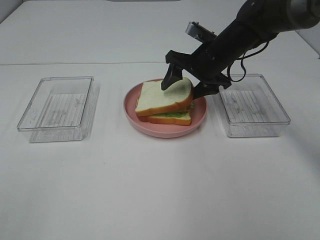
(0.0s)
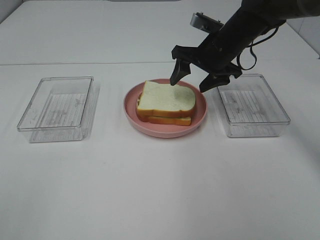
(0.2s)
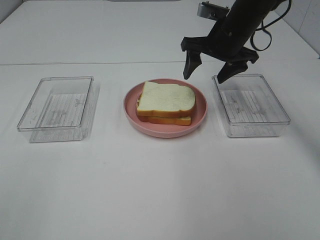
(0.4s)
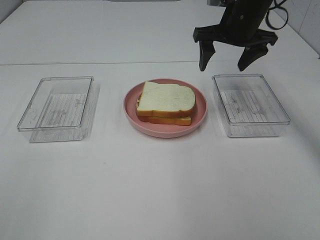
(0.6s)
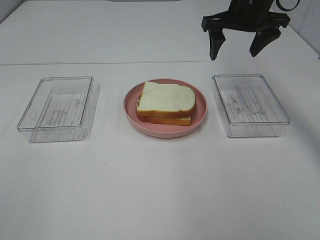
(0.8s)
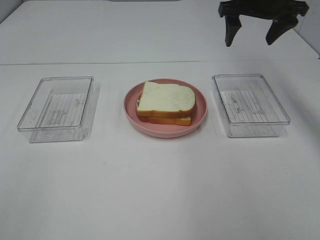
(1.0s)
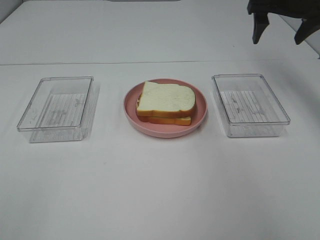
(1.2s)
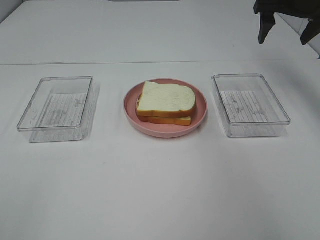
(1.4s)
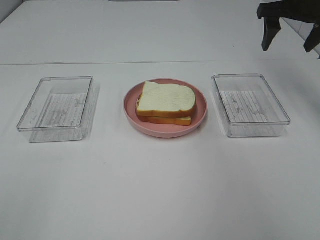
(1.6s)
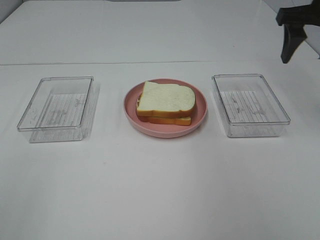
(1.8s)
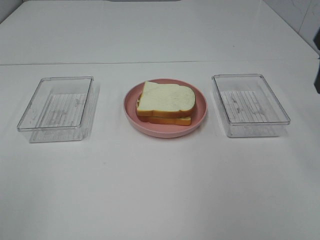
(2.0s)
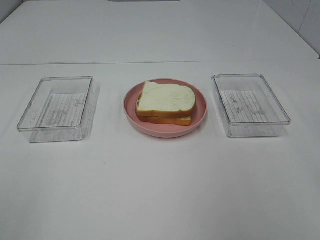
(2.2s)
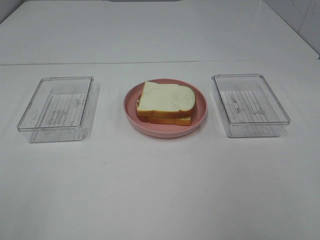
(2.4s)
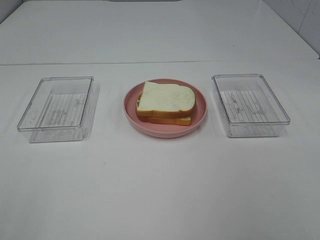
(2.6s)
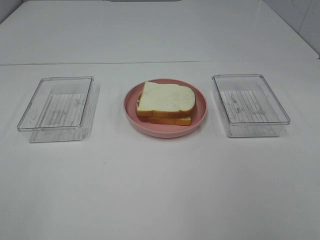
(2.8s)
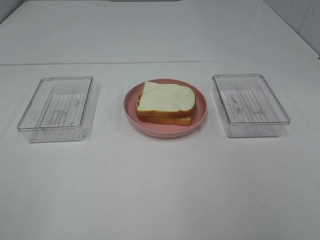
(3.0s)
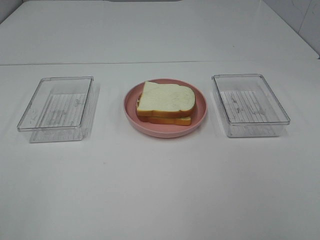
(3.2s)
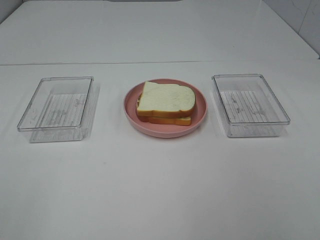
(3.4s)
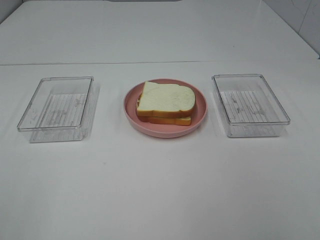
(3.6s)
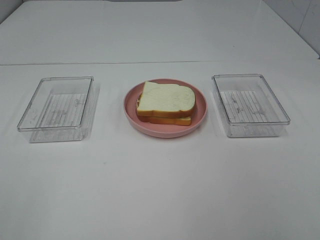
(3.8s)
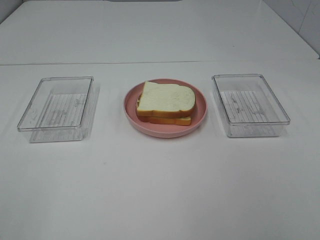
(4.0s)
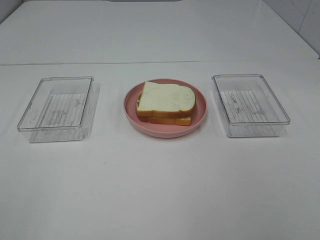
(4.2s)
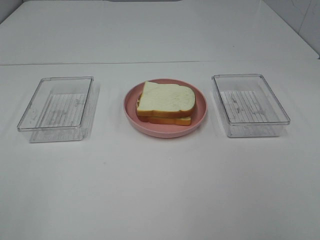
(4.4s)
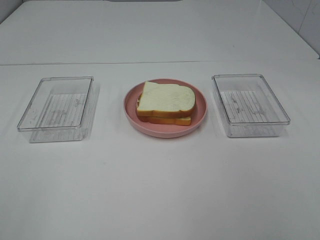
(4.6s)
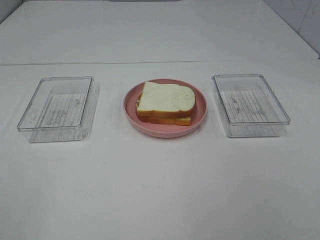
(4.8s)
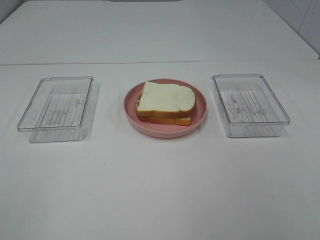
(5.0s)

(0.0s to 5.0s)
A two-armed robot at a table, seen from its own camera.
Task of the whole recording: Make sandwiches.
0.0s - 1.6s: The right gripper heads to the right and upward, covering about 20 cm.
1.6s - 3.4s: The right gripper travels backward by some 40 cm.
3.4s - 5.0s: Both grippers stay about where they are.

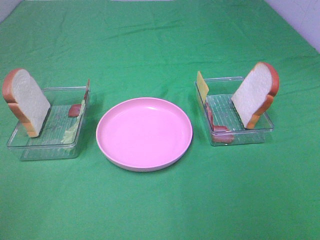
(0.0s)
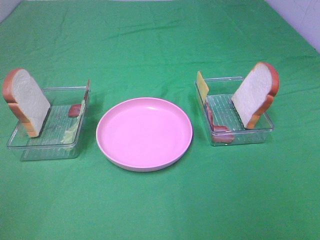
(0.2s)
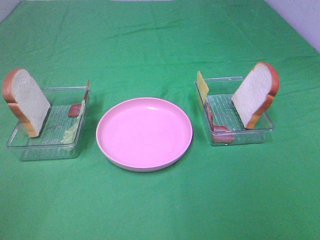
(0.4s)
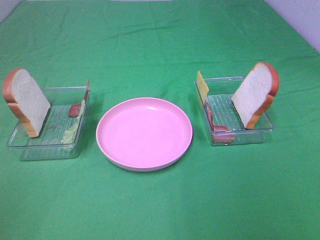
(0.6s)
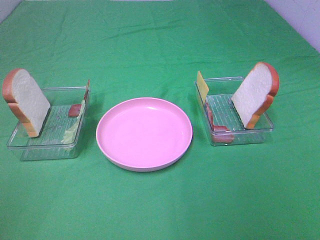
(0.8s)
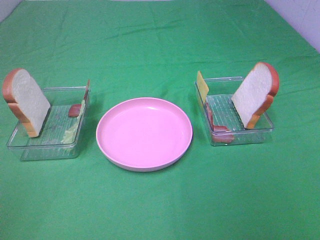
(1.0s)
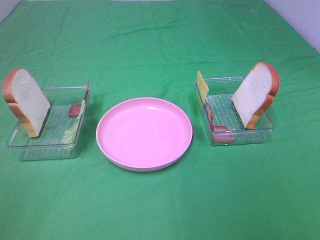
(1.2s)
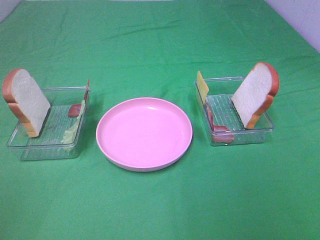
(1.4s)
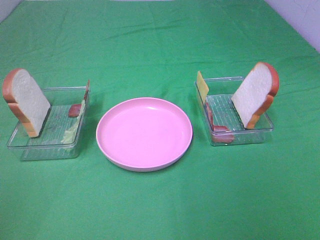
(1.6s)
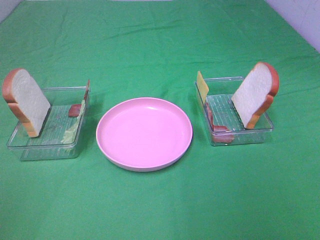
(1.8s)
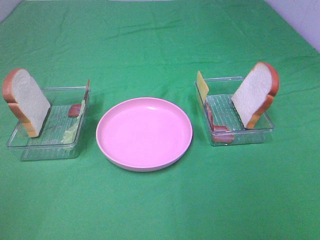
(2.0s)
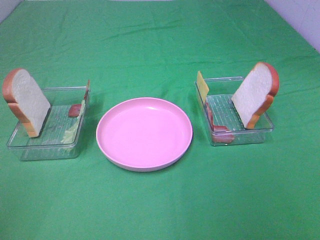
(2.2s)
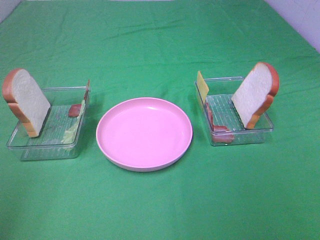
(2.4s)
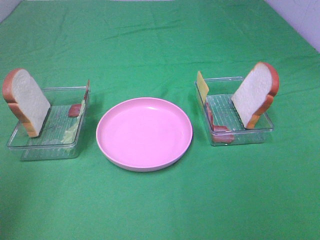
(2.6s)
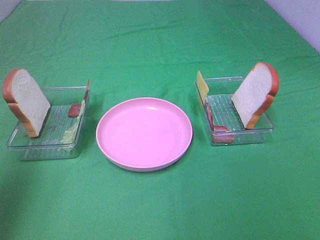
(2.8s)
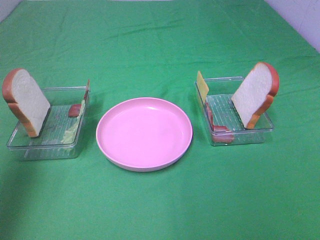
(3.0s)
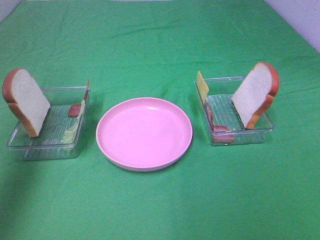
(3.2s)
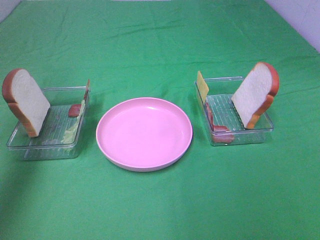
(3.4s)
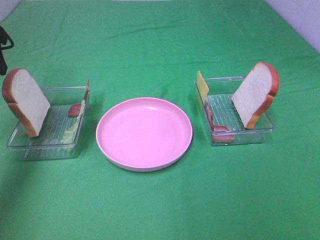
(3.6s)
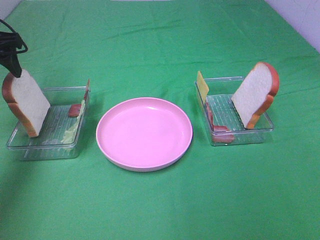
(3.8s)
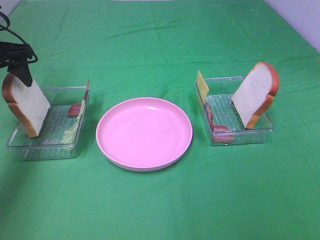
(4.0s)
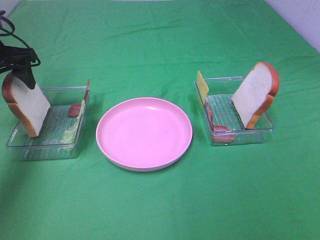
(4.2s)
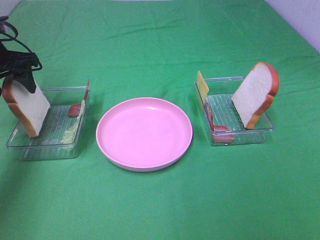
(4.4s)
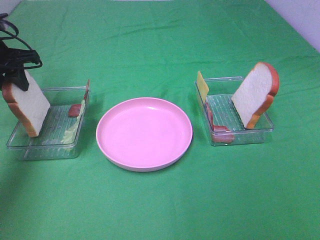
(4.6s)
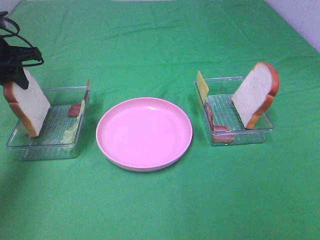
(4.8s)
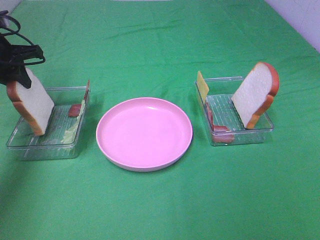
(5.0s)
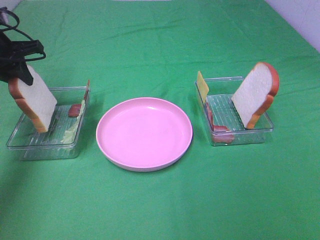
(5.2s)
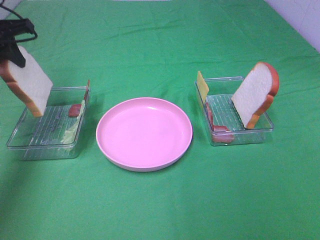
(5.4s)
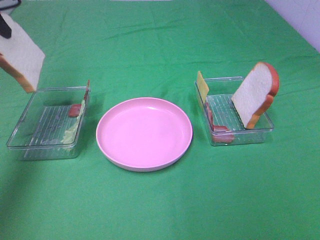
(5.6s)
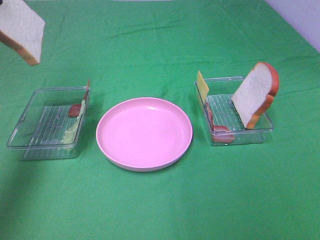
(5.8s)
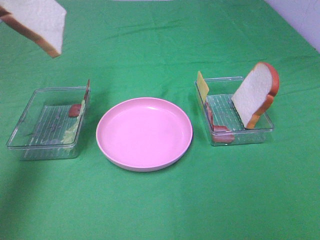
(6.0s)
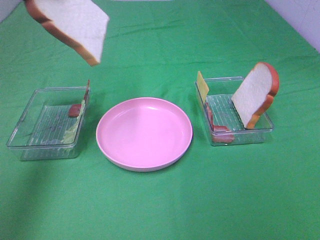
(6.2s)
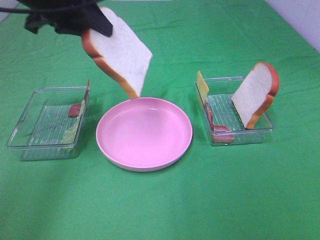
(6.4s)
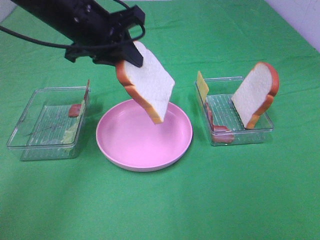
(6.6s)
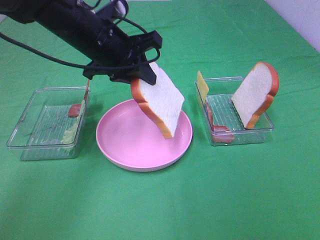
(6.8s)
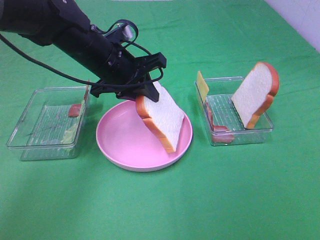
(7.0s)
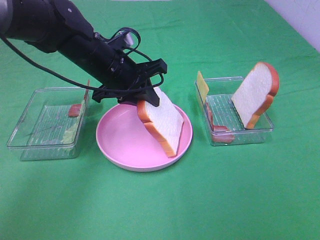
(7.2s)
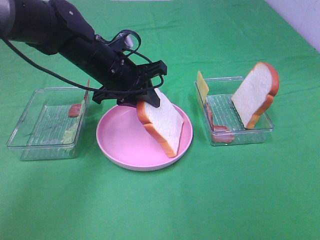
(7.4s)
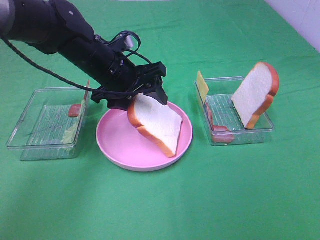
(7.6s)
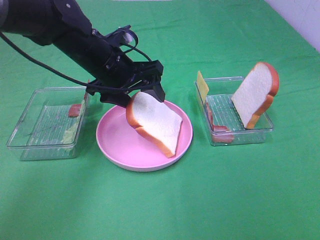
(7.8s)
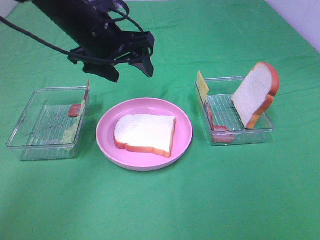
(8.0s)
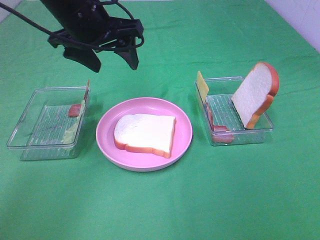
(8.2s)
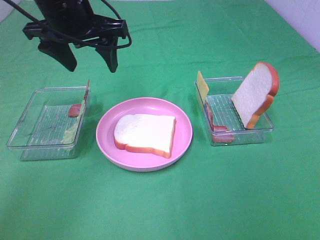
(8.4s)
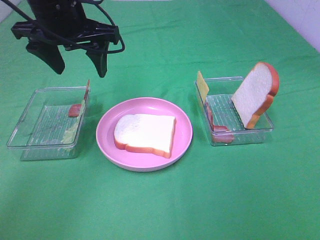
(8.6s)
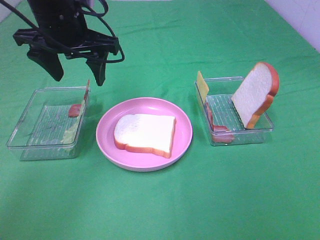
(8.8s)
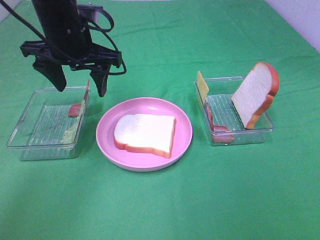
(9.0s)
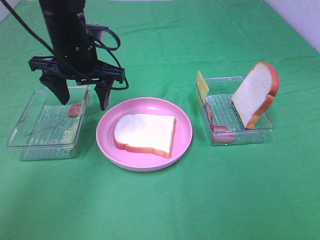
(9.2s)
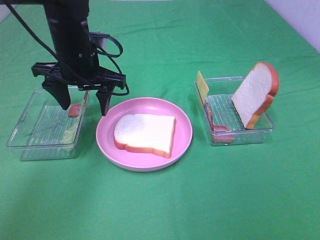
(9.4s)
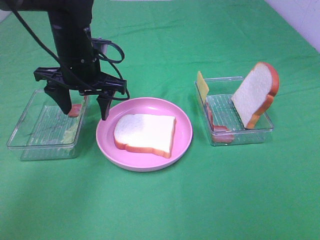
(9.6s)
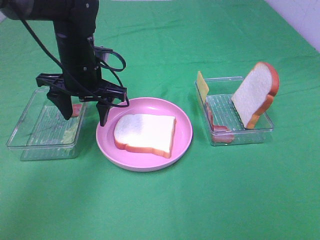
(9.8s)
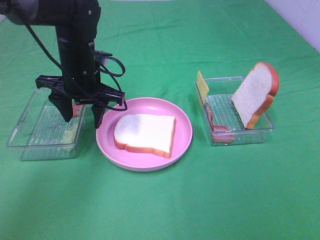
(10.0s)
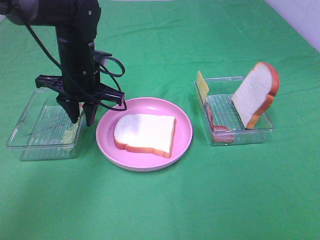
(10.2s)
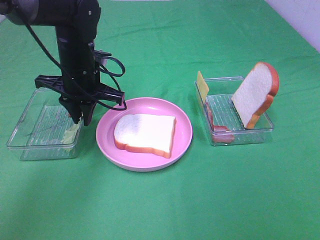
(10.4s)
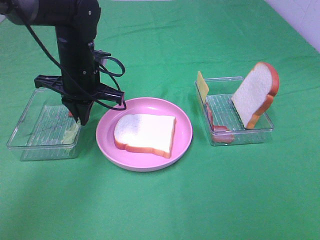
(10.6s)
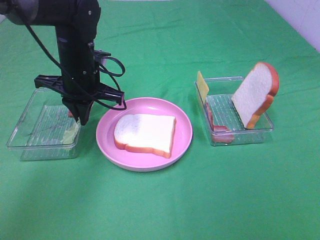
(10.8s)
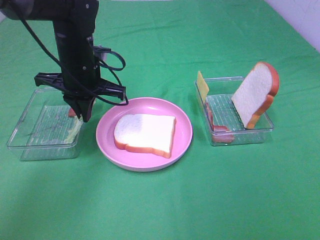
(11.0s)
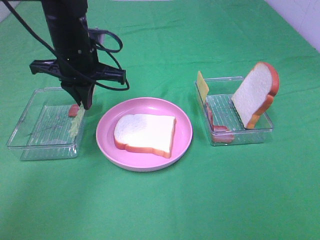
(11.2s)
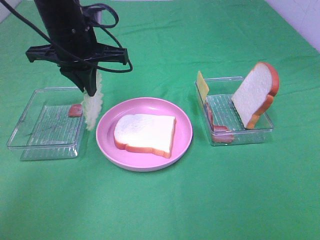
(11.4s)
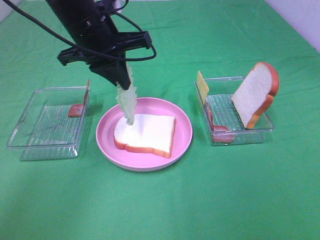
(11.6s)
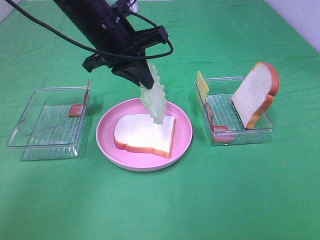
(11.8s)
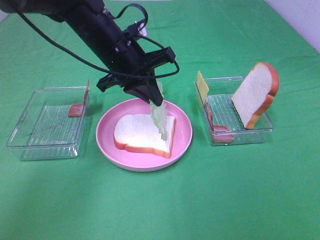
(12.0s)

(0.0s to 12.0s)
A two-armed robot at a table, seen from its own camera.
Task of the whole recording: Make sandwiches.
Step, 0.0s - 4.8s: Left hand:grab the bread slice.
Step, 5.0s - 8.0s: Left hand:place the bread slice on the plate.
Step, 8.2s - 10.8s: Left hand:grab the lettuce slice.
0.0s - 1.6s: Both grippers stay about where they are.
1.6s - 3.0s: The left gripper goes roughly 25 cm forward.
3.0s - 4.4s: The left gripper heads forward and downward, covering some 25 cm.
4.4s - 6.0s: The left gripper travels upward and backward by some 20 cm, and closes.
6.0s - 7.6s: The left gripper goes approximately 25 cm downward and to the right, and opens.
7.6s - 9.0s: The left gripper travels upward by roughly 10 cm.
9.0s - 10.4s: The left gripper goes approximately 10 cm downward, and closes.
10.4s - 12.0s: The left gripper shifts roughly 5 cm to the right.

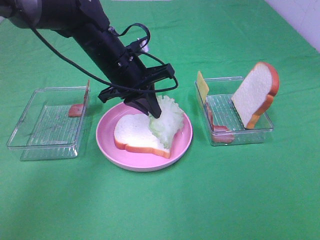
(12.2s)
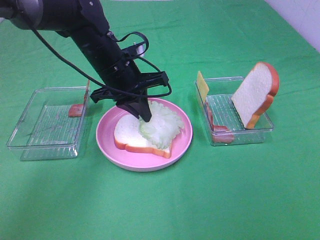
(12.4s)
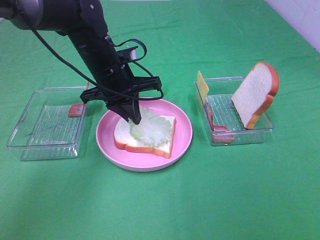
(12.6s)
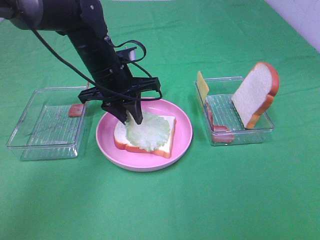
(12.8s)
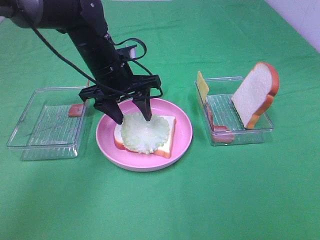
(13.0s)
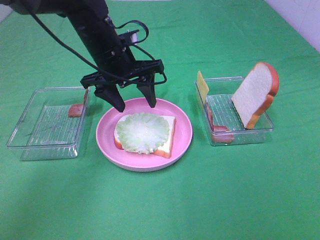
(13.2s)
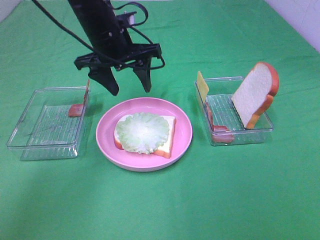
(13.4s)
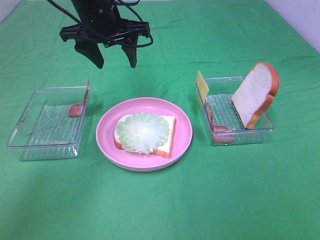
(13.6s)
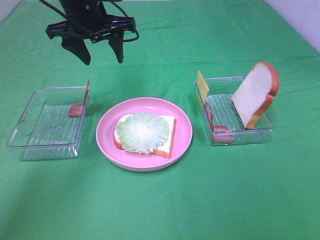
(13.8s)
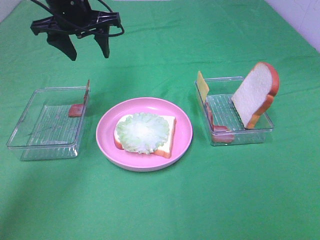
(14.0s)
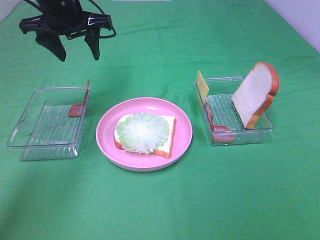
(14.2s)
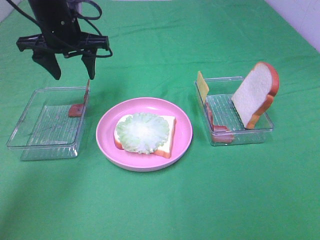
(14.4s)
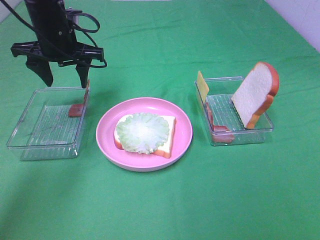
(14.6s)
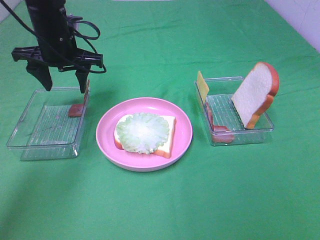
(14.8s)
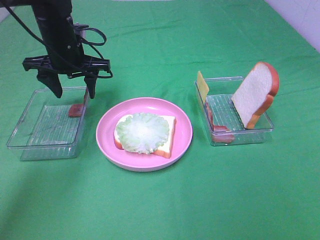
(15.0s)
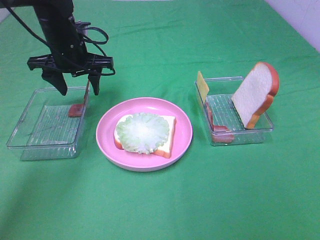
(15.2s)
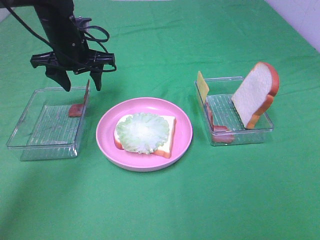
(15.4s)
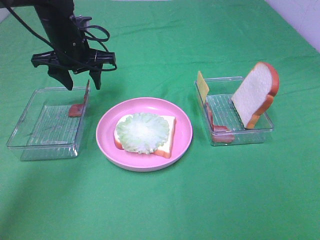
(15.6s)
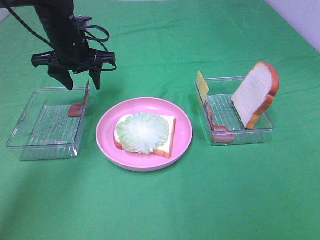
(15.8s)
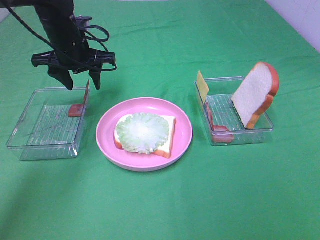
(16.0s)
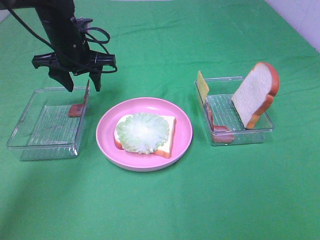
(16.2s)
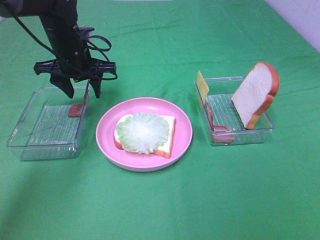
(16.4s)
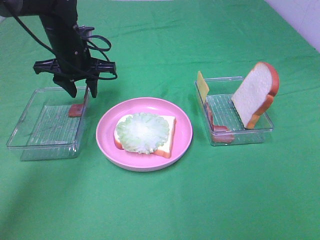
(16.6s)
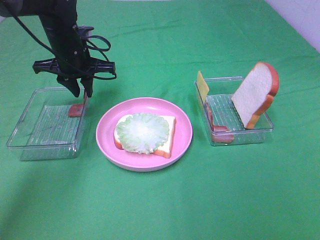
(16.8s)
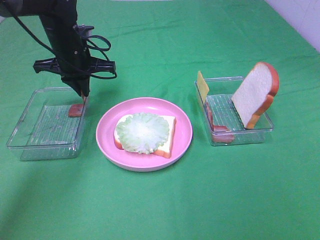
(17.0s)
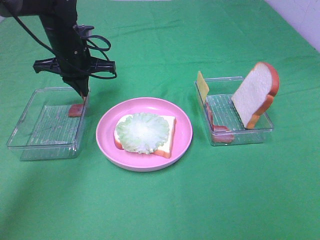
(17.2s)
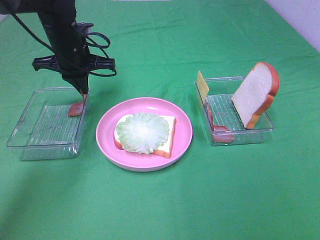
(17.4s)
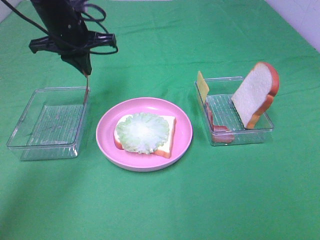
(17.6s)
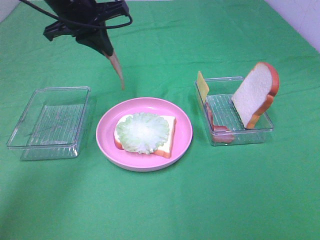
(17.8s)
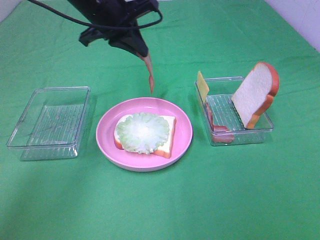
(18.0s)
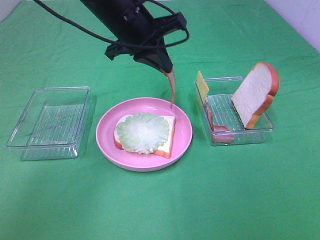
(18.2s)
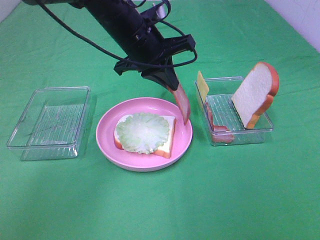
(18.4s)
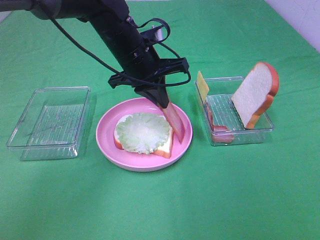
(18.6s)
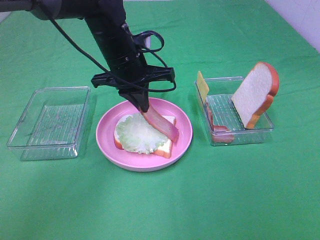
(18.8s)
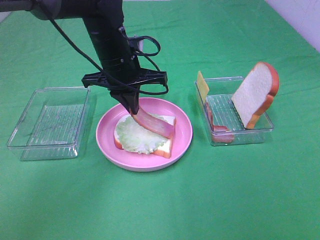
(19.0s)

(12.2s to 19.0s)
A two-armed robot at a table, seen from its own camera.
Task of the whole recording: Make sandwiches.
Step, 13.4s - 17.4s: Left hand:grab the bacon.
12.2s - 13.6s: The left gripper travels upward by roughly 10 cm, and opens its fingers.
13.6s - 15.0s: The left gripper moves downward and to the left, roughly 10 cm.
15.0s - 16.2s: The grippers make only small movements.
16.2s - 17.6s: The left gripper travels upward by roughly 5 cm, and closes.
17.6s - 19.0s: The left gripper is displaced to the right by approximately 10 cm.
